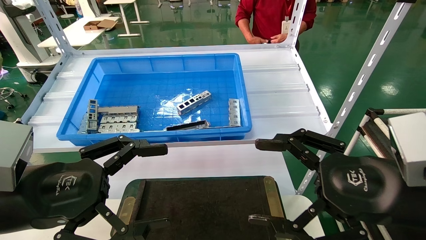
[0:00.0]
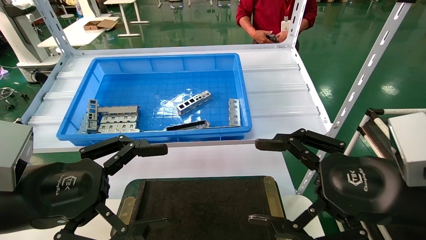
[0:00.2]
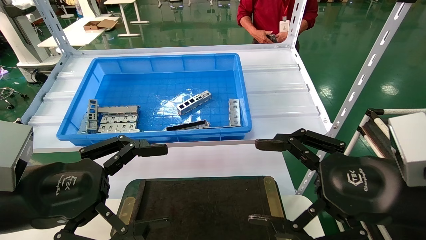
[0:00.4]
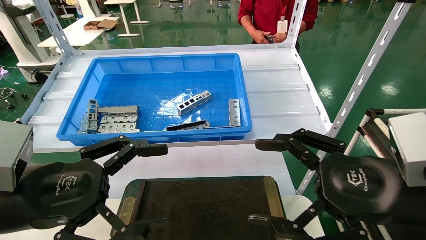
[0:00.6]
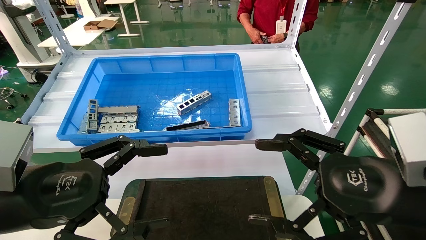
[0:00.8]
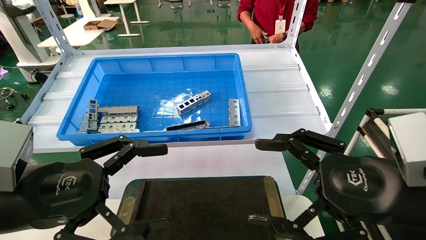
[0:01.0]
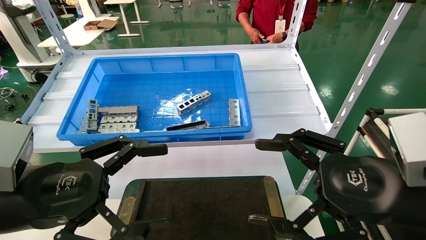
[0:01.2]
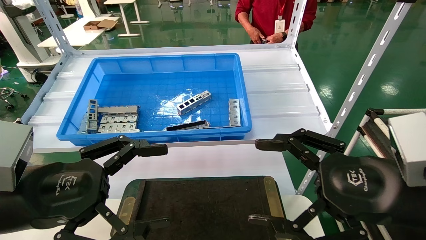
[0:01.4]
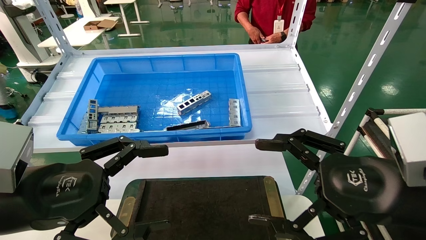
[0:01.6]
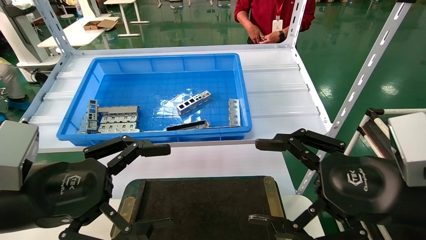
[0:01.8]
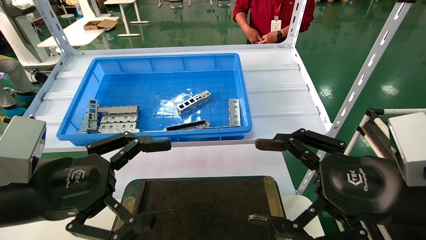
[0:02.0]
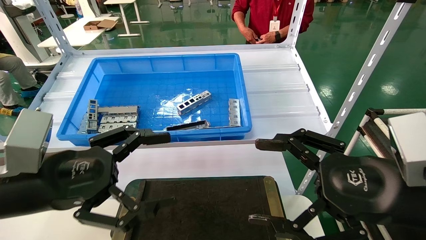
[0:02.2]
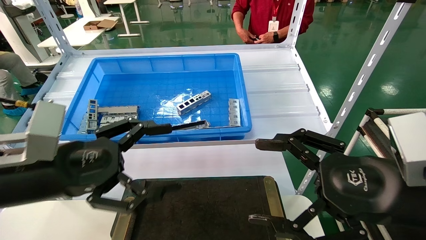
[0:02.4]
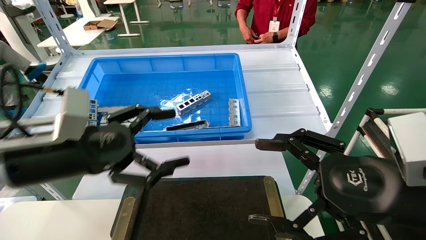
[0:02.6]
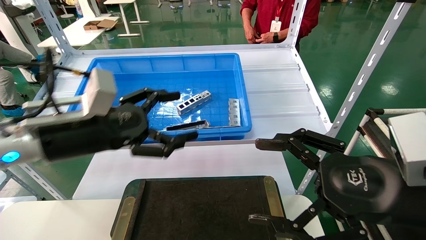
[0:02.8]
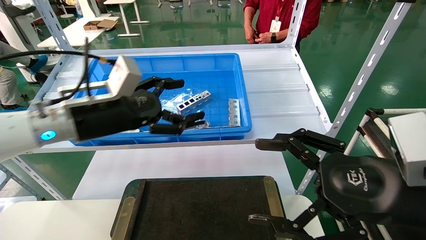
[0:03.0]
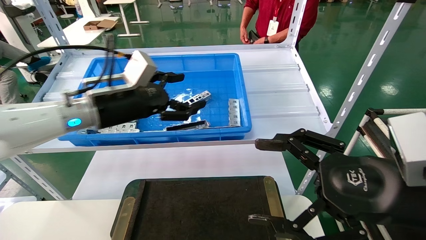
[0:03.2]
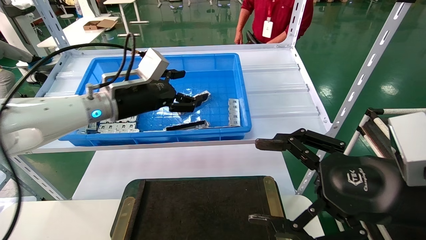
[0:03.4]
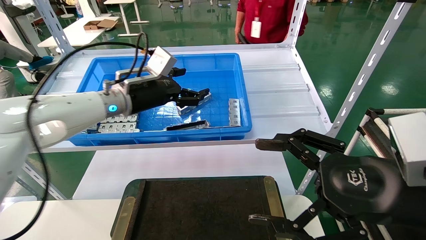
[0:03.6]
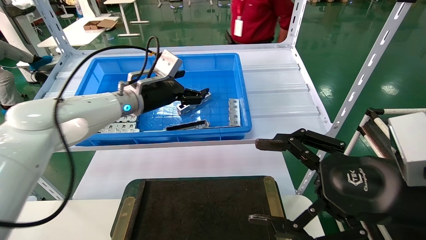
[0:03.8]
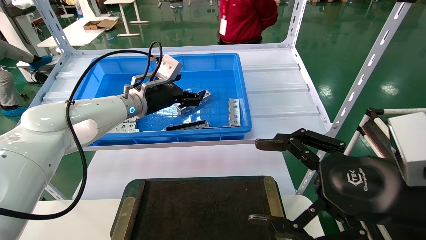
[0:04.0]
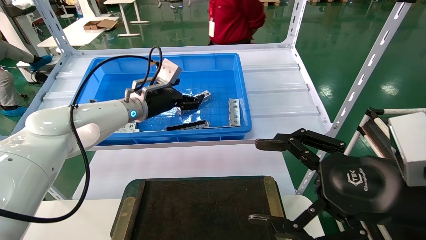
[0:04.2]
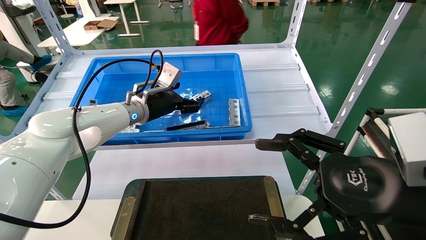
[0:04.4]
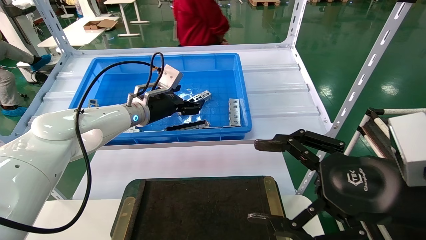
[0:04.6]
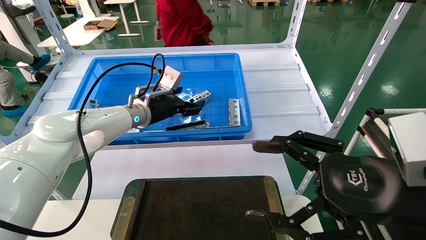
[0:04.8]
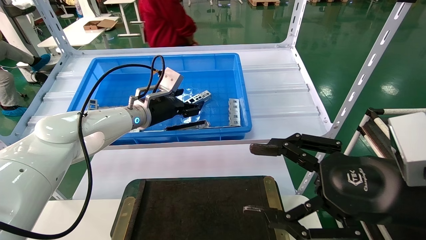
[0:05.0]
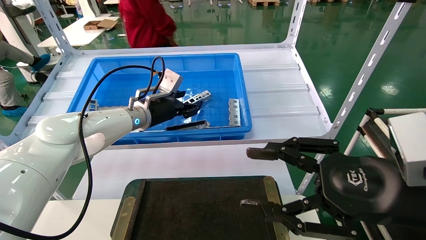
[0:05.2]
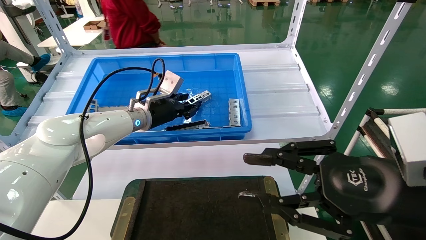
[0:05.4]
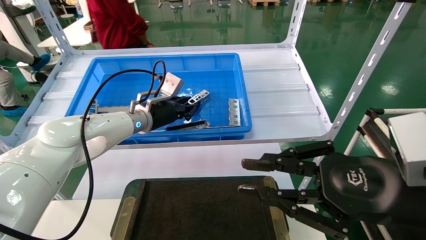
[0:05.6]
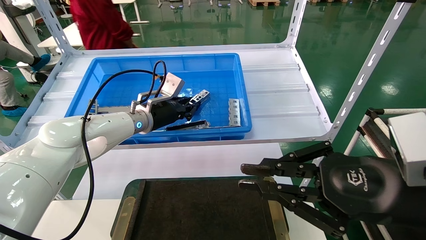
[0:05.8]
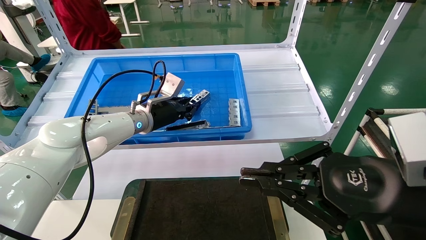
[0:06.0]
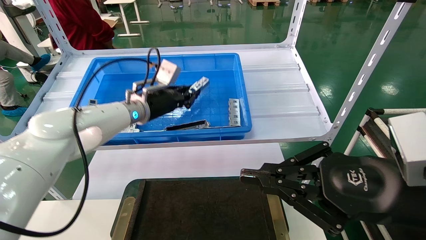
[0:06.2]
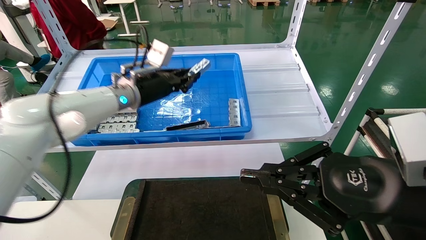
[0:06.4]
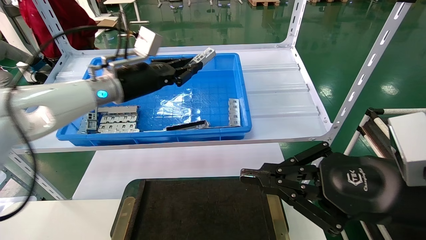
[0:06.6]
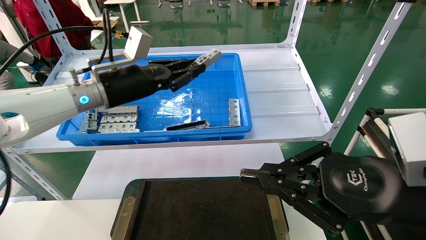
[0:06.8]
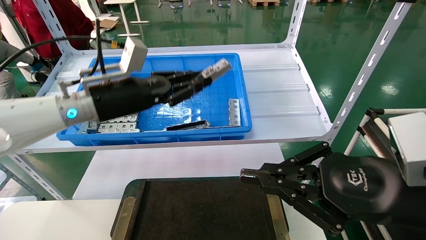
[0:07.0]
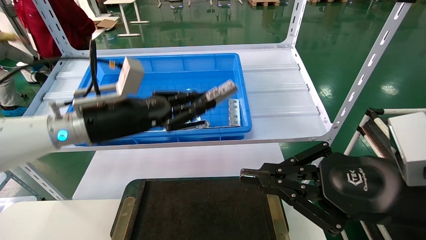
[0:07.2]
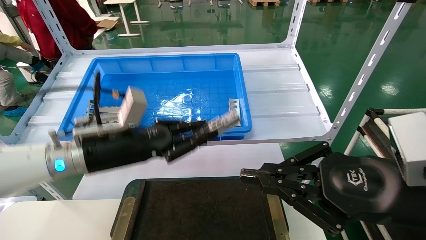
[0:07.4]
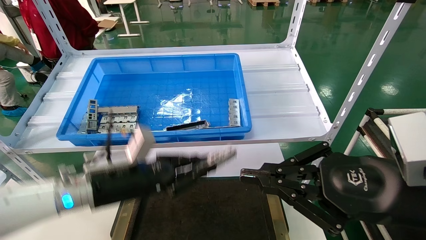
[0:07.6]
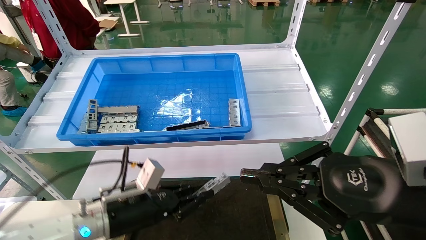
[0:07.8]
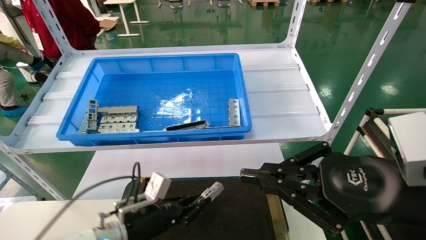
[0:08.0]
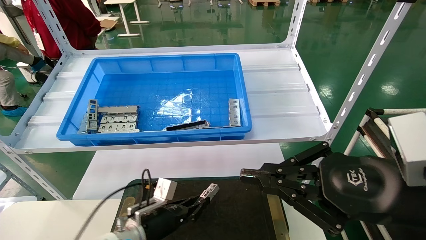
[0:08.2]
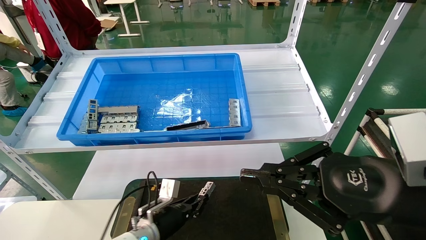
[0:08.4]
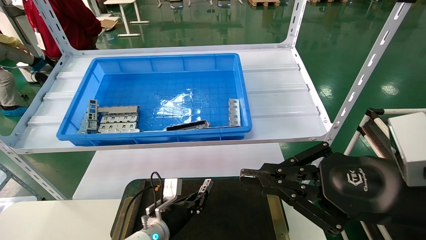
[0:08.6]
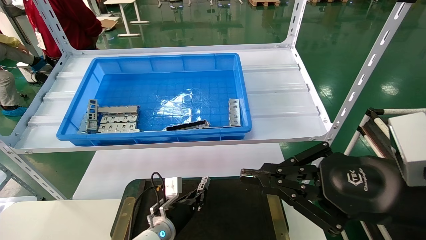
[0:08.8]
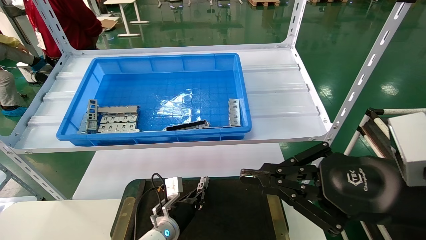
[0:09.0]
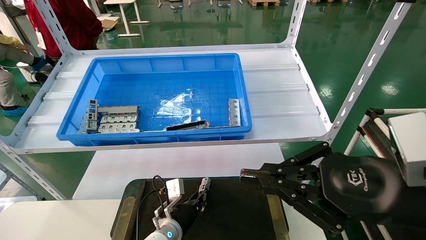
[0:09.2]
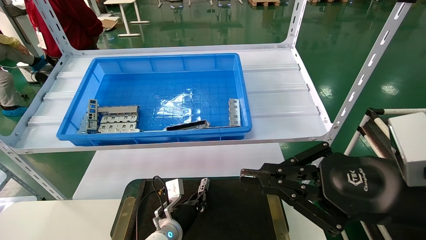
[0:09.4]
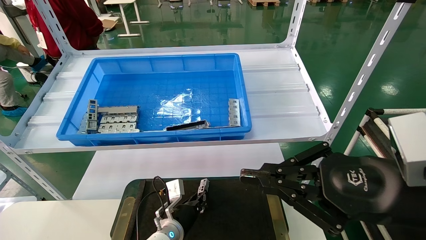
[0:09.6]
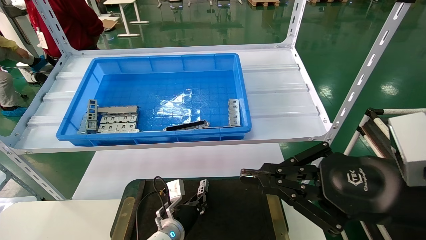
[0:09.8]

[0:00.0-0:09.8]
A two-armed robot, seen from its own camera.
Task of the whole recording: Grasp the part with one hand and place it on the black container.
Step, 0:02.0 to 0:06.4: Pick up the front USB bracket from the feeding area.
0:00.0 to 0:01.4: Both grippers stay about where they are.
0:01.4 to 0:02.8: The left gripper is displaced forward by some 10 cm.
0:02.8 to 0:04.2: The left gripper moves forward, some 20 cm.
0:04.2 to 0:05.6: The right gripper closes. The left gripper closes.
0:05.6 to 0:07.0: The right gripper closes its fingers. Meanwhile the left gripper moves backward and upward, approximately 15 cm.
0:07.0 to 0:08.4: The left gripper is displaced downward by roughly 30 cm.
0:08.4 to 0:09.8: The left gripper moves approximately 5 cm.

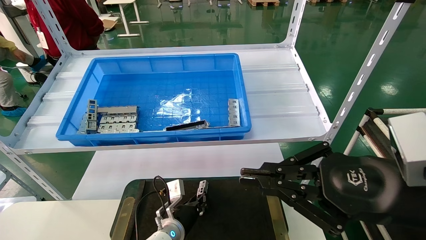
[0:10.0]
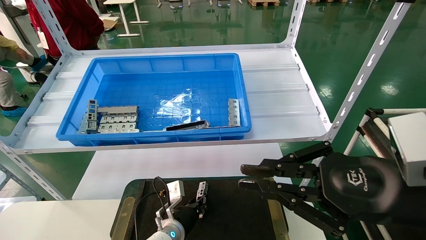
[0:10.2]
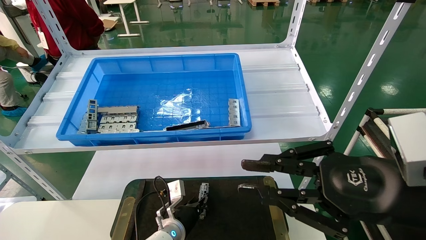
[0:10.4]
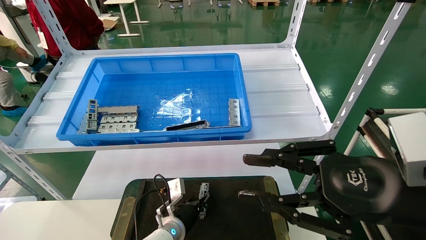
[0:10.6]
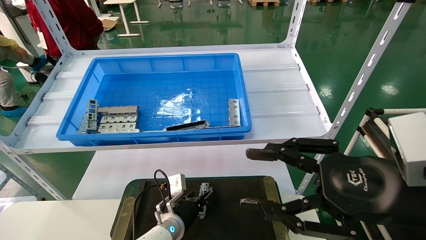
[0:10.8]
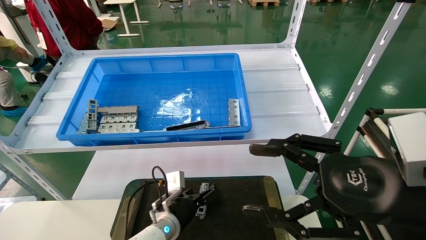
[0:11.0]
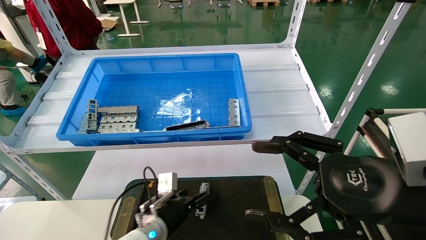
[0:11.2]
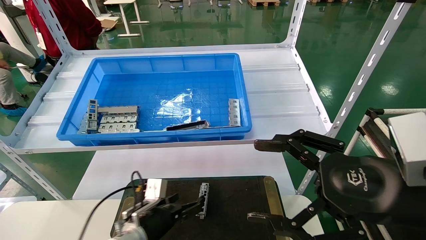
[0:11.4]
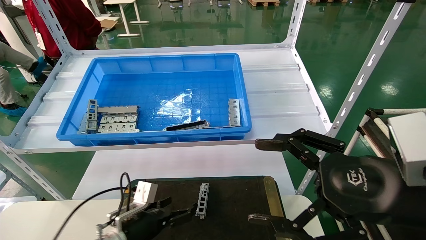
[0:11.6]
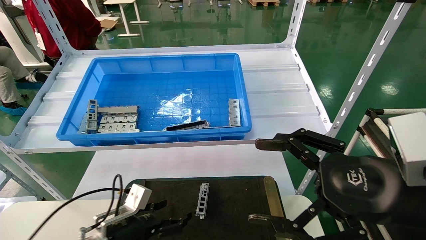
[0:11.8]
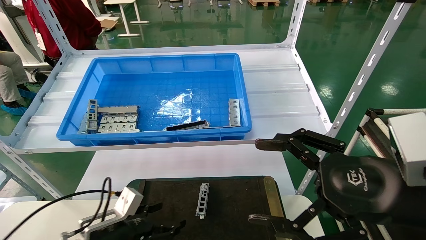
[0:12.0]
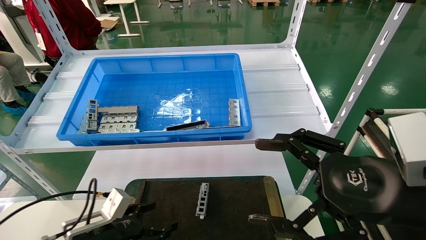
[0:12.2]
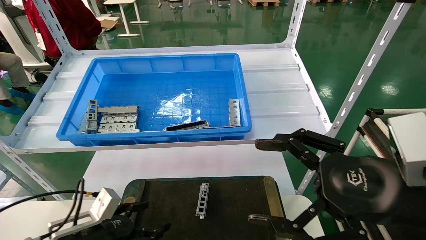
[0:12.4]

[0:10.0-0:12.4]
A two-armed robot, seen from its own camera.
Task of the whole recording: Grasp the part with one hand and place it on the black container.
0:10.0 to 0:11.2: The left gripper shifts by about 5 cm, and opens its fingers; the right gripper opens up.
0:11.2 to 0:12.4: The left gripper goes approximately 15 cm to the left and backward.
